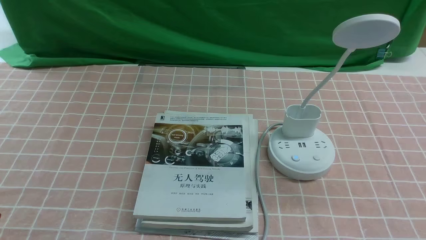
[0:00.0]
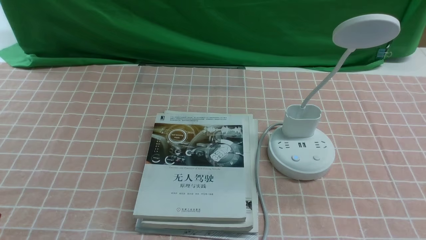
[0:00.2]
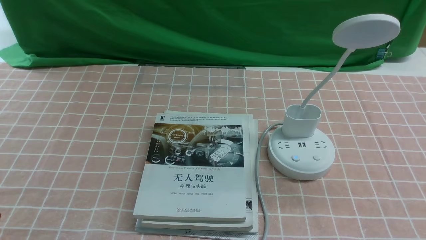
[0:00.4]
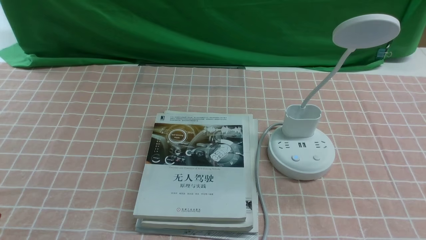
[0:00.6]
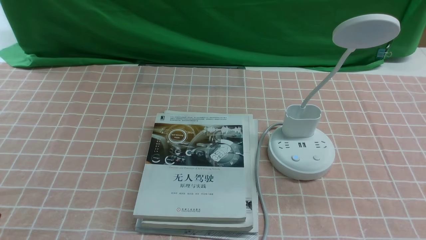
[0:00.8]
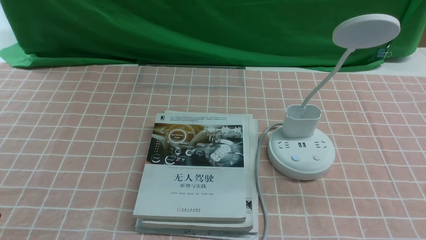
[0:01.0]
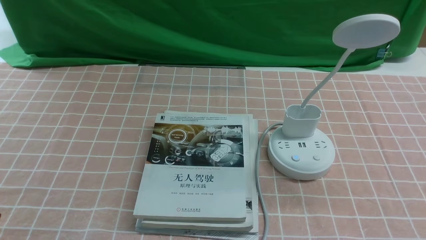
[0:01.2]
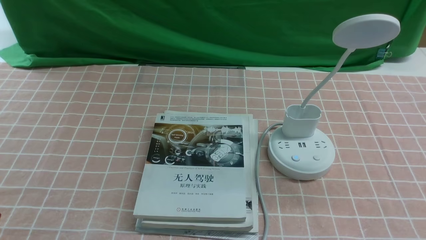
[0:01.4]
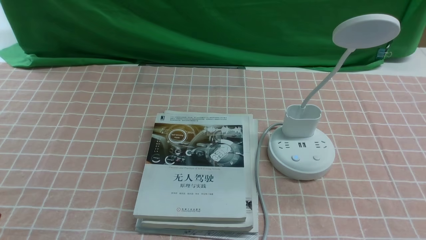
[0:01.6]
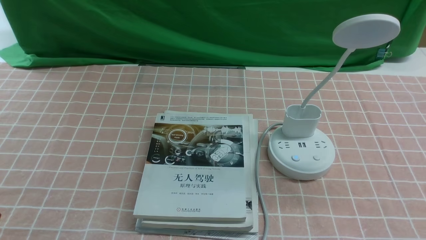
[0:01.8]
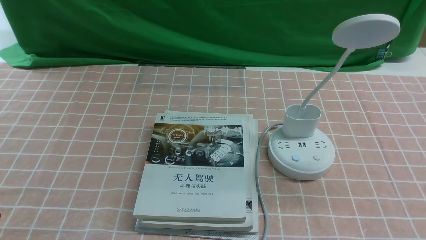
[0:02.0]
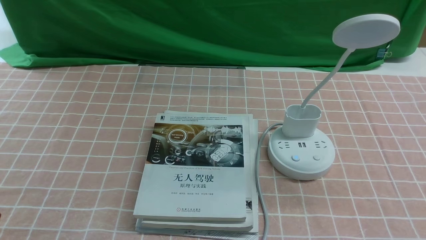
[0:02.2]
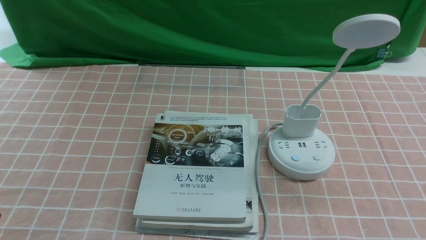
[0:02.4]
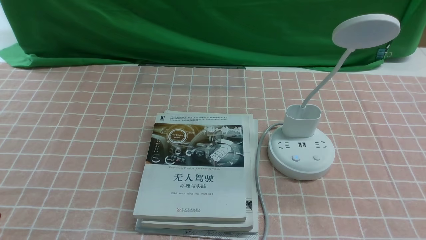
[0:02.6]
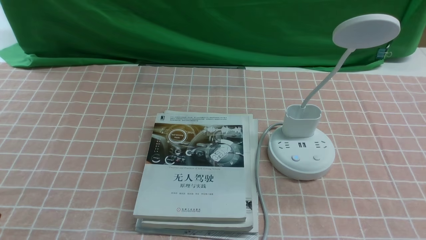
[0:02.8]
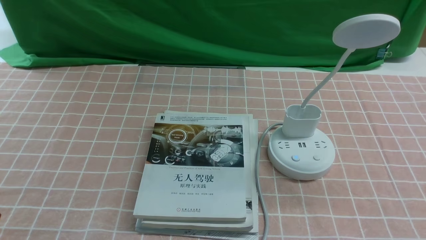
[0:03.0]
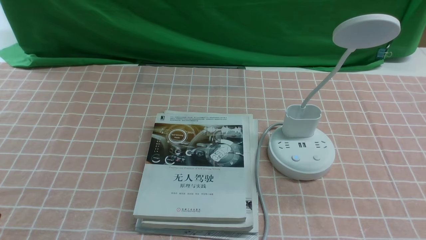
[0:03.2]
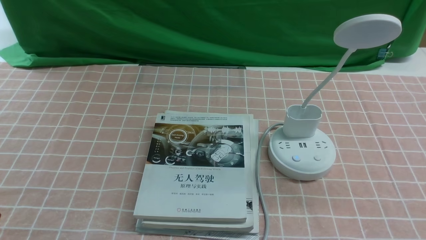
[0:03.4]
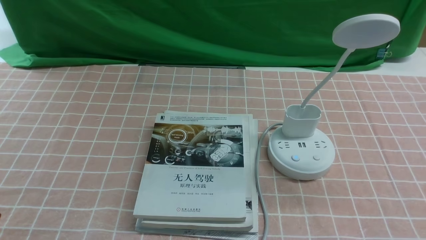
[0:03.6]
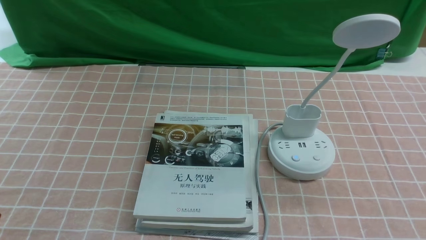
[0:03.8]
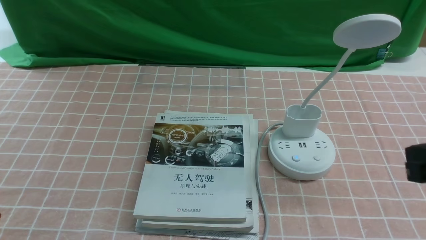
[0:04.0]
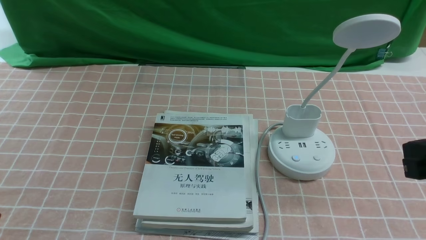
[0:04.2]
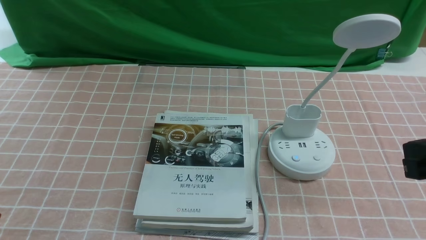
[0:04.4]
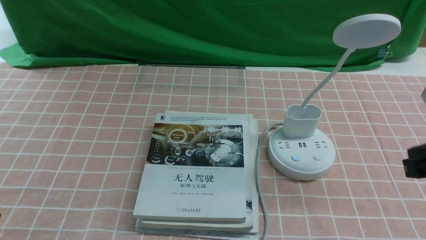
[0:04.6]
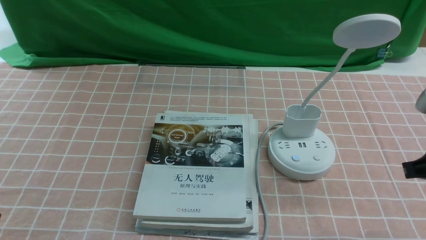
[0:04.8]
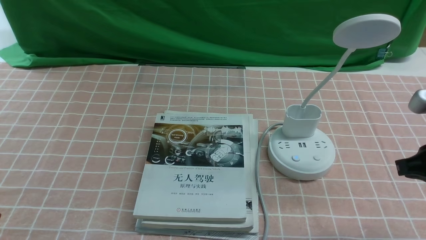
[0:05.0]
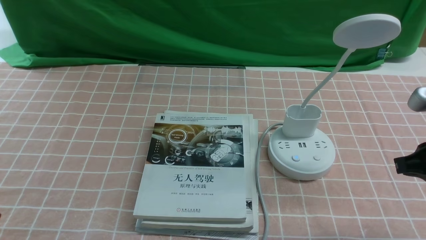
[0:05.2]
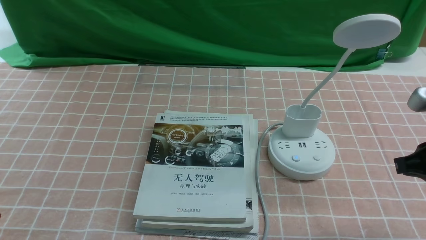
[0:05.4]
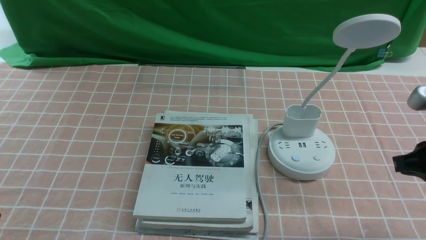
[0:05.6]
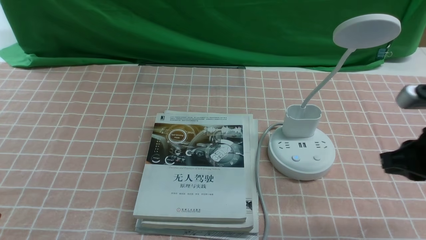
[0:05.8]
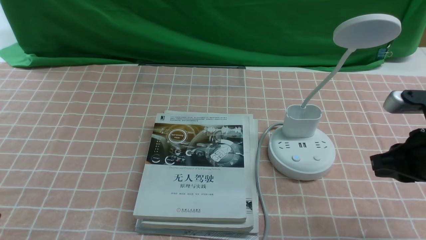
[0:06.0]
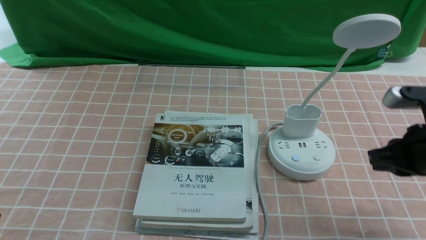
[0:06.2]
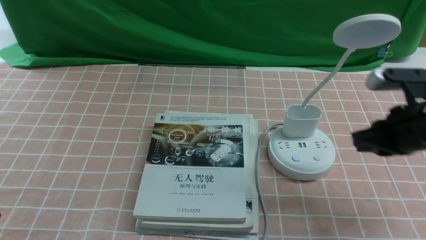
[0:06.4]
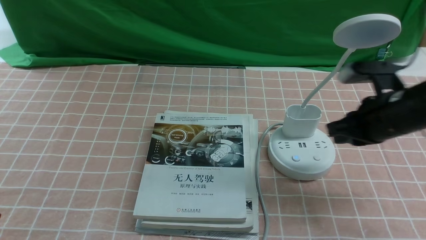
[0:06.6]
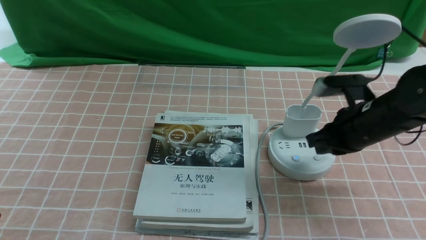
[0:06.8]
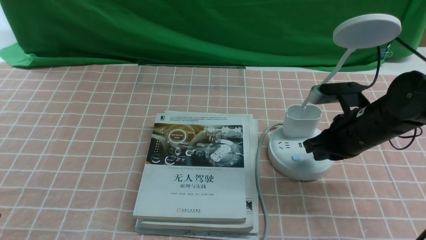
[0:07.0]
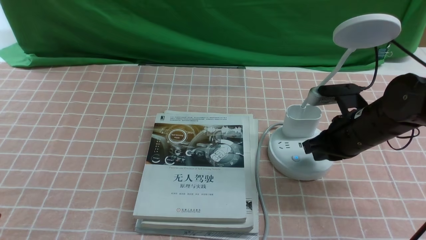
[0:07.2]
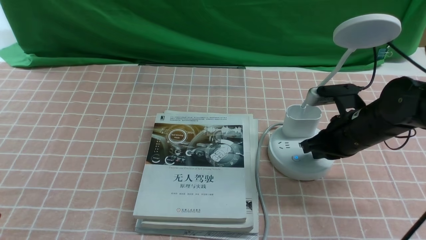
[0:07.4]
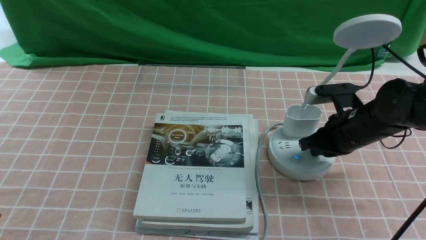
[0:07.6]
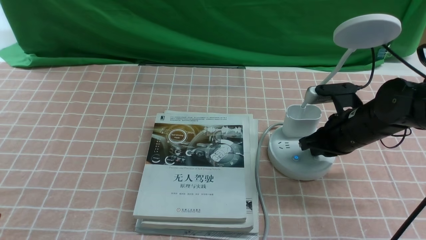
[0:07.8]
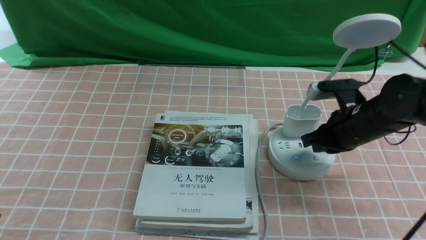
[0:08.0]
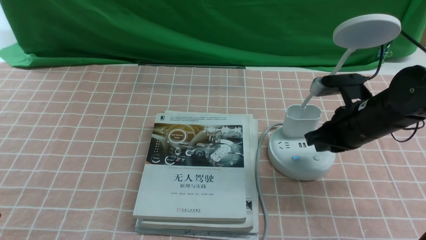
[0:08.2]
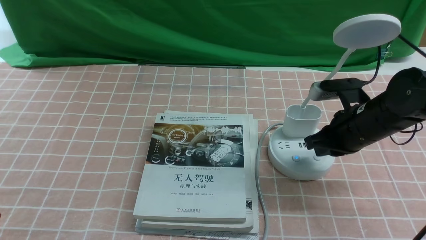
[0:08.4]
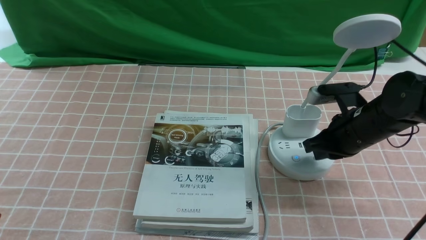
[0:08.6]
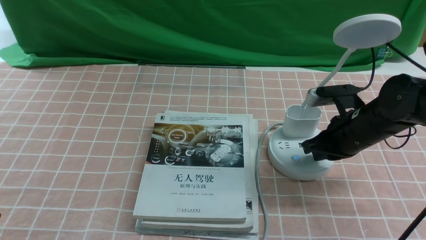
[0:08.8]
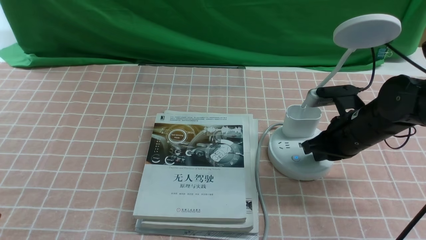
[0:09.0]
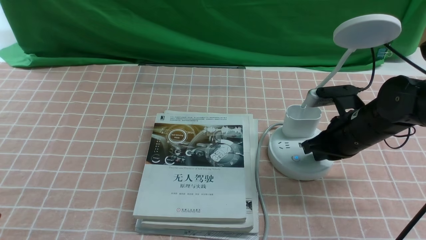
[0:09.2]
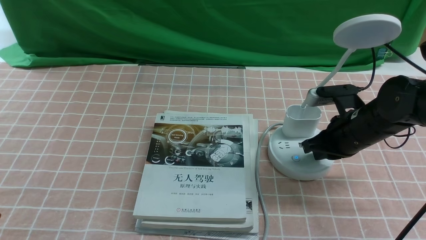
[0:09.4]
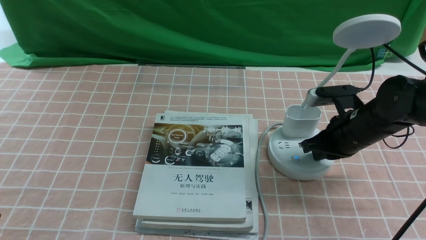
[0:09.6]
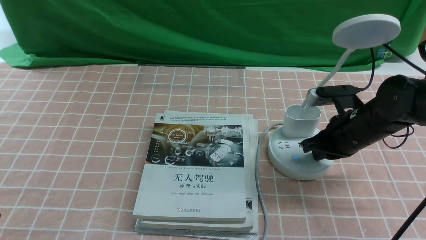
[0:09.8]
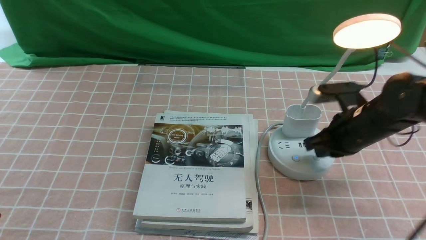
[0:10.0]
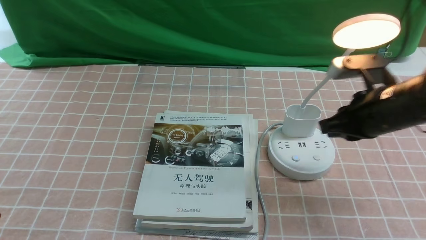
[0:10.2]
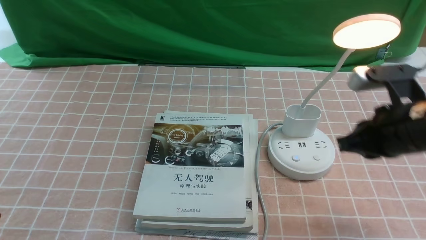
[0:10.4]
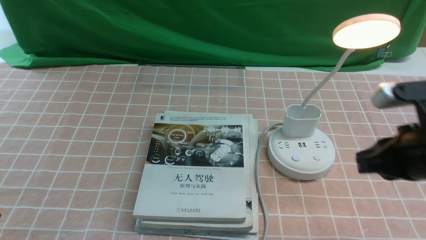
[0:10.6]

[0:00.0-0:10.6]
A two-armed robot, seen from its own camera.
Step, 0:00.0 to 0:10.0: use the right arm to press the button switch on the lamp holder.
0:03.0 to 0:04.6: The right gripper shifts some 15 cm forward and upward, and closes.
0:04.6 to 0:06.0: The right gripper moves forward and downward, about 10 cm.
0:06.0 to 0:07.6: The right gripper goes some 15 cm forward, downward and to the left.
0:07.6 to 0:09.0: The grippers make only small movements.
0:09.0 to 0:10.6: The right gripper goes roughly 15 cm backward and upward.

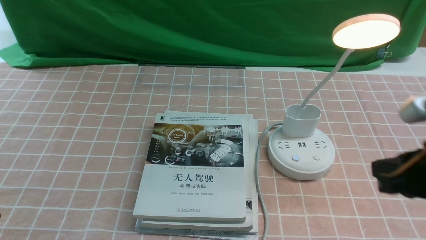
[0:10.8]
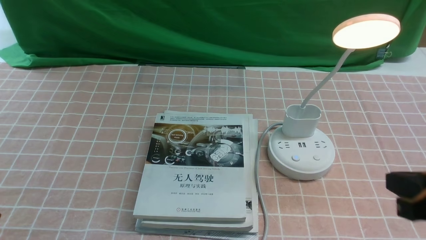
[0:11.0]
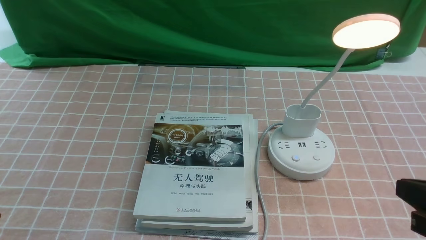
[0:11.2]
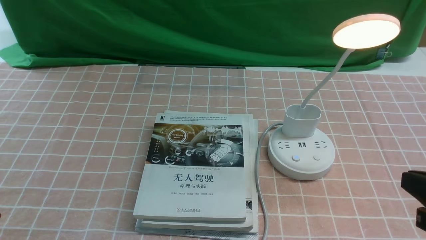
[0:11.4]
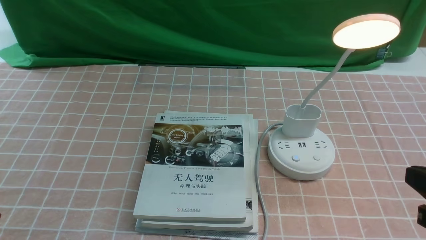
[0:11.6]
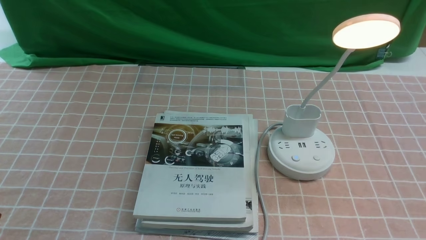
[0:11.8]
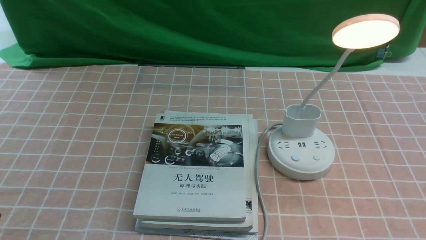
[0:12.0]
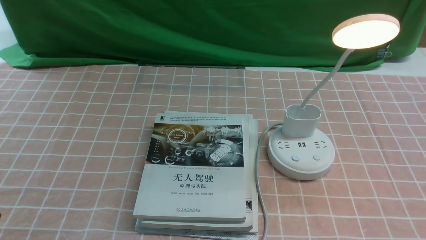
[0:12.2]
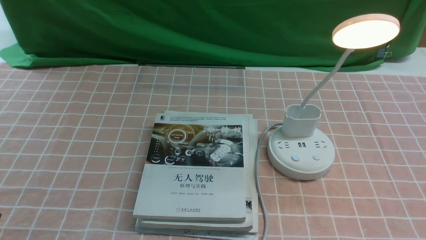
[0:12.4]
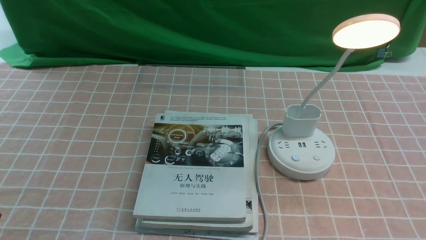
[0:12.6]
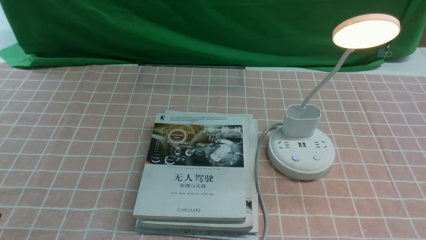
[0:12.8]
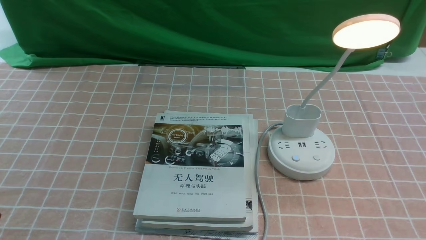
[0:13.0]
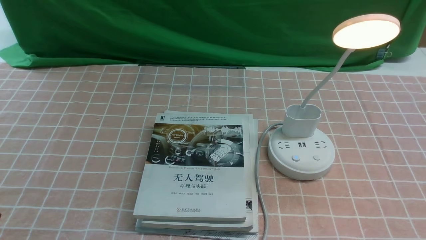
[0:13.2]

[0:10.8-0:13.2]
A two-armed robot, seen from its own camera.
0:10.8 to 0:12.0: The right gripper is displaced backward and to the right by approximately 10 cm.
